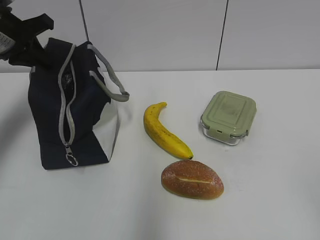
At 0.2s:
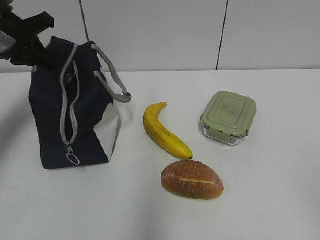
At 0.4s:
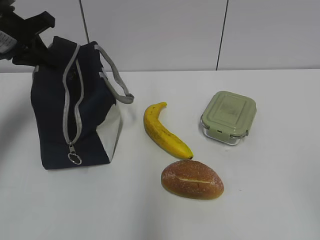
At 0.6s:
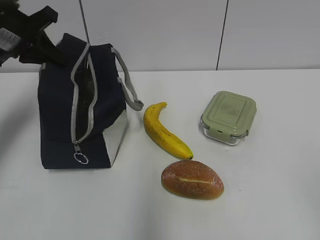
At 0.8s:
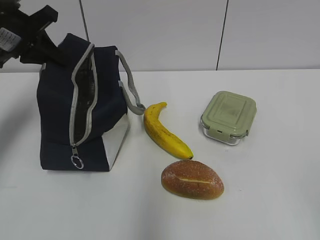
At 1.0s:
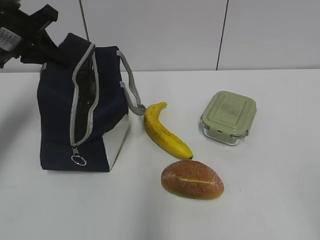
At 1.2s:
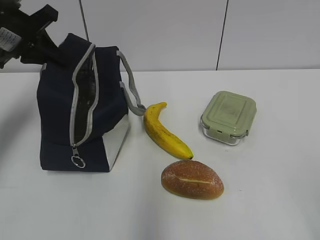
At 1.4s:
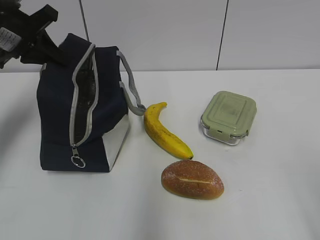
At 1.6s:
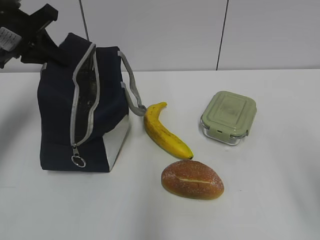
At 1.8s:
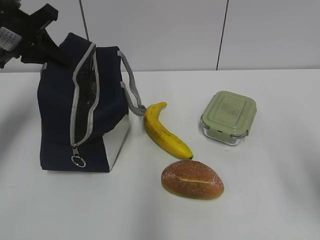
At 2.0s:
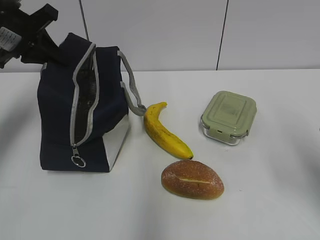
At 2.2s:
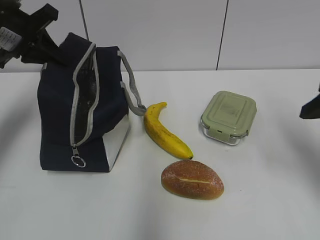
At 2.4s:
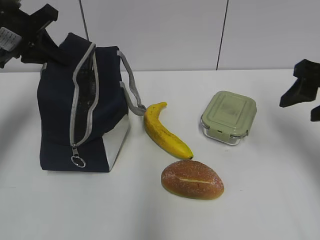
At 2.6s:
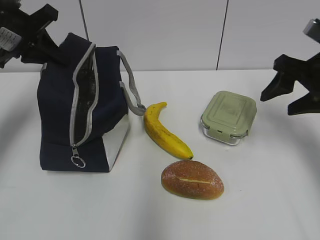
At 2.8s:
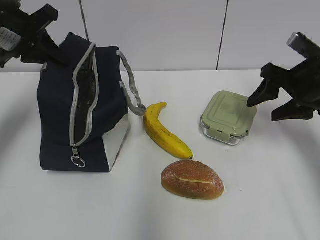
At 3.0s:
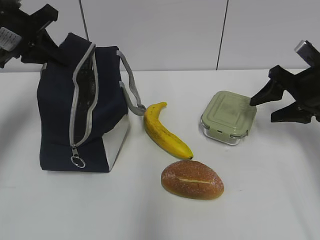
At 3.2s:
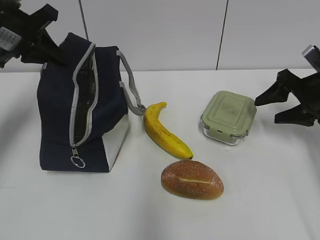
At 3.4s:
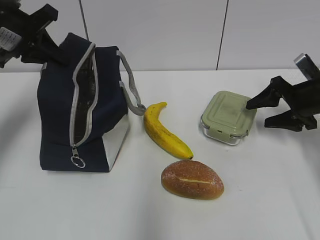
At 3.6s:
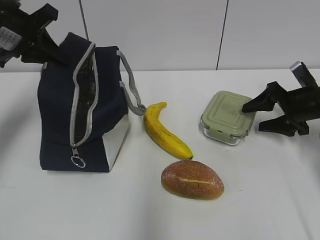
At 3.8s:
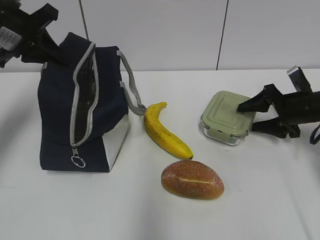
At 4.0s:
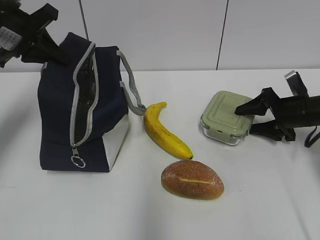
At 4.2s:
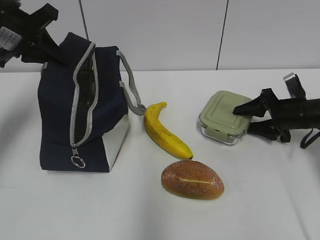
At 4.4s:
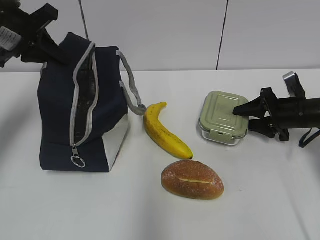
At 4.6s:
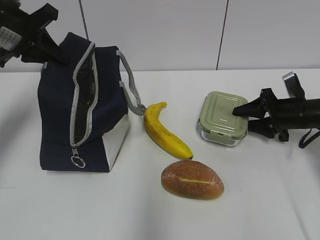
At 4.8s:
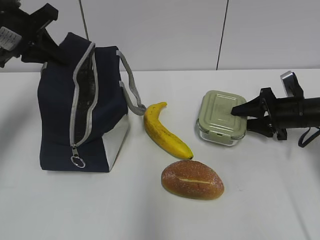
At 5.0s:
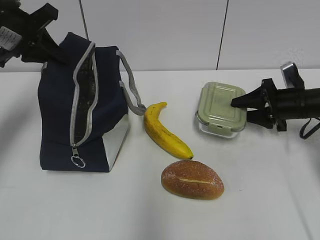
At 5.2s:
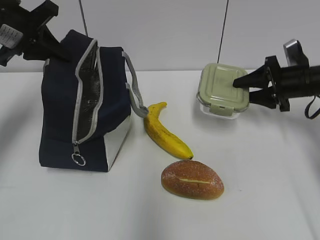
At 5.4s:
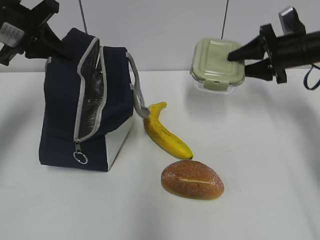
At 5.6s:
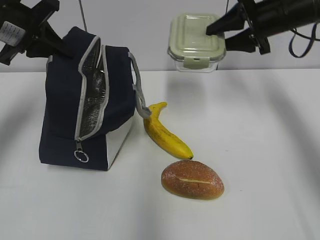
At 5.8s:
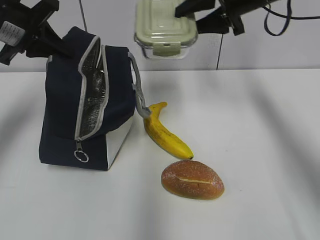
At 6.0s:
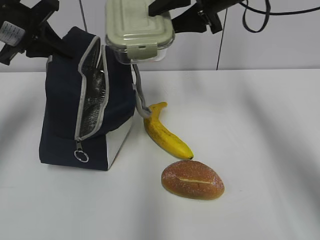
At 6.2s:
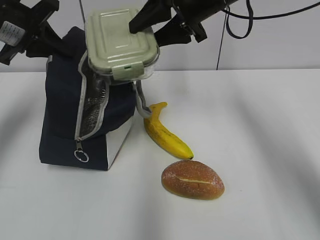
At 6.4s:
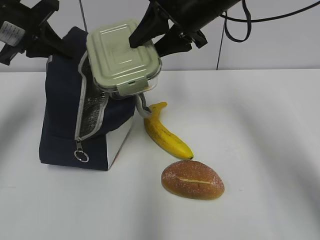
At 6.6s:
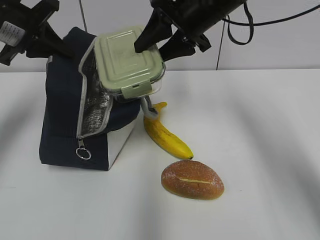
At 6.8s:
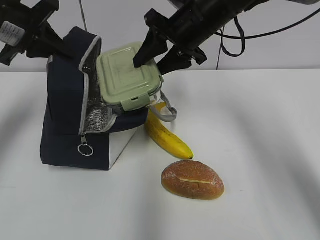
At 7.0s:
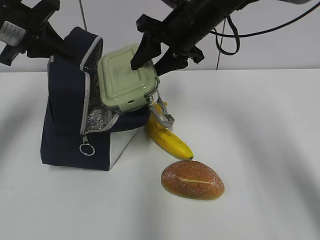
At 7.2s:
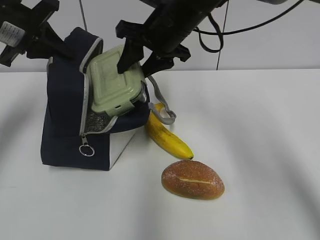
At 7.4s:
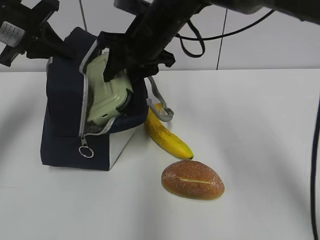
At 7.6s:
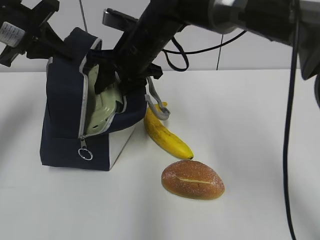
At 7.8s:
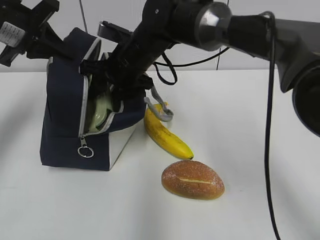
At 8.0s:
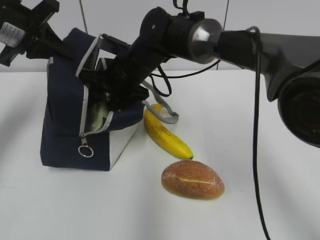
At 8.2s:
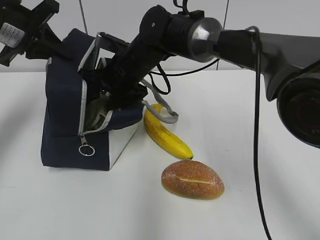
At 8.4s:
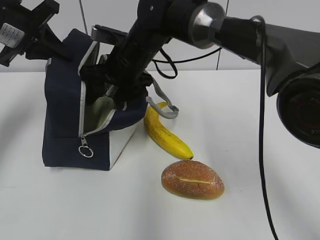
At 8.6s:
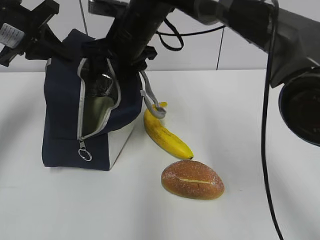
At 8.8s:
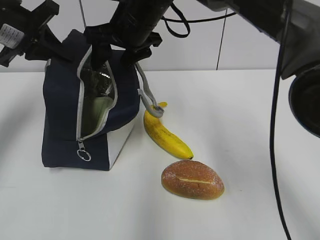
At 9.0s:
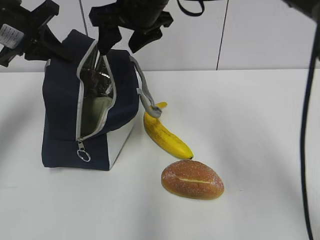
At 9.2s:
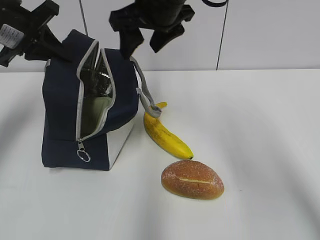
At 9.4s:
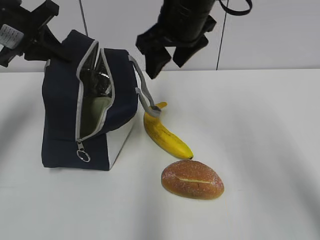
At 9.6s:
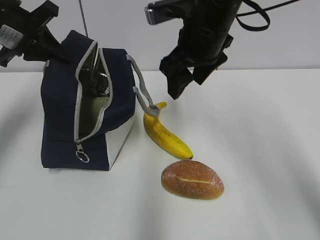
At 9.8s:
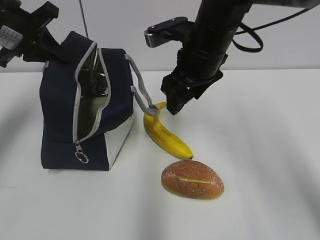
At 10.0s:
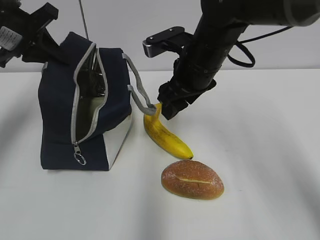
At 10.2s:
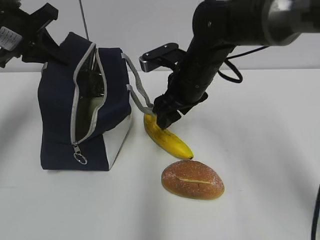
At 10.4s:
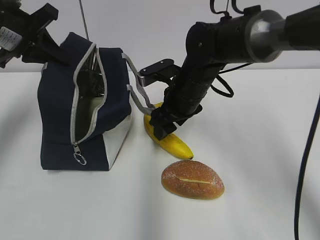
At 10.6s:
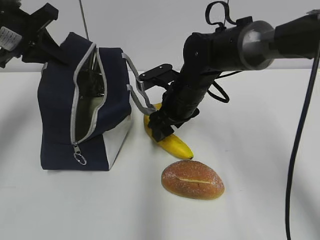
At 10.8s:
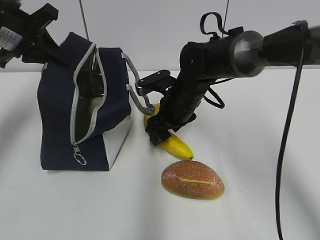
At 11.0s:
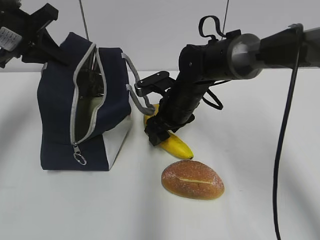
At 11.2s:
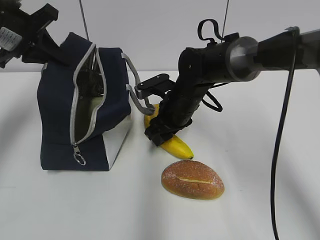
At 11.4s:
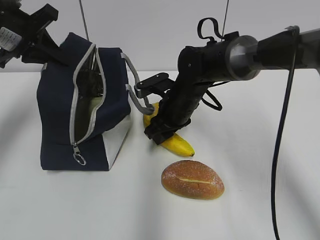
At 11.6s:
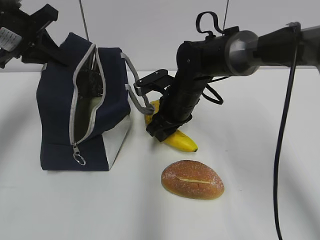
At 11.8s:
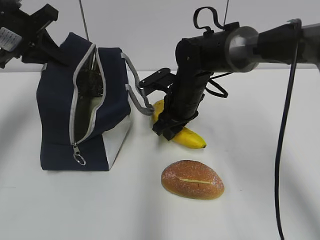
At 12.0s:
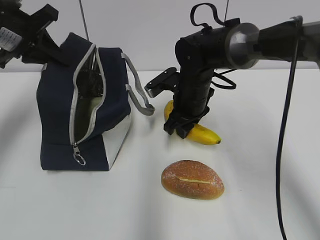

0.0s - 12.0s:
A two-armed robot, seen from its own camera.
Step, 0.0s - 4.4s: Grab the lunch box with your right hand.
Step, 6.8s - 8.4s: Place it into the bag with your right hand.
Step, 8.6s - 11.4s: Grab the banana with your right hand.
0.0s - 1.6s: The right gripper is displaced forward by about 5 cm.
1.6s - 3.0s: The right gripper goes approximately 30 cm forward.
3.0s - 4.4s: The right gripper moves downward, some 10 cm.
4.4s - 6.0s: The right gripper moves upward and to the left, about 30 cm.
6.0s - 7.6s: The right gripper goes some 15 cm to the left and downward.
7.6s - 9.0s: The right gripper heads upward, covering some 10 cm.
9.0s - 10.4s: The right gripper heads downward, covering approximately 15 cm.
10.4s - 12.0s: The right gripper closes up.

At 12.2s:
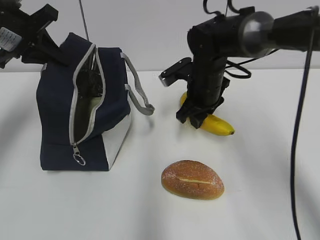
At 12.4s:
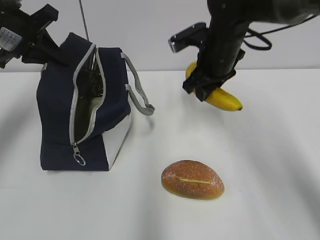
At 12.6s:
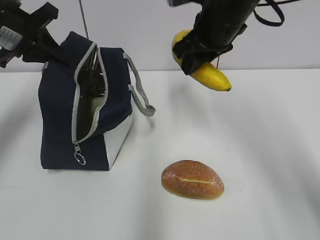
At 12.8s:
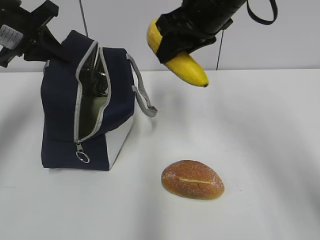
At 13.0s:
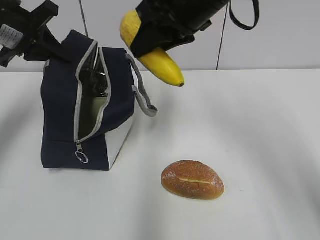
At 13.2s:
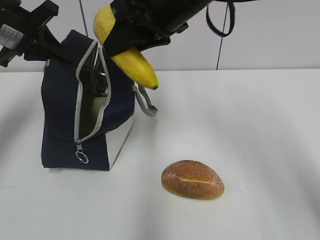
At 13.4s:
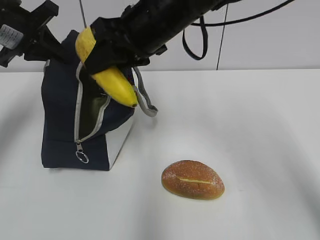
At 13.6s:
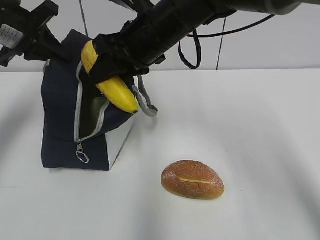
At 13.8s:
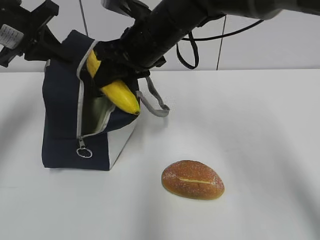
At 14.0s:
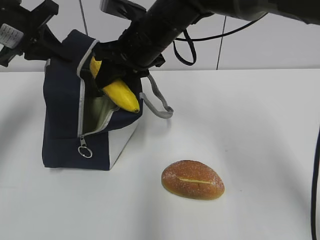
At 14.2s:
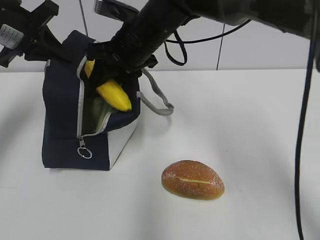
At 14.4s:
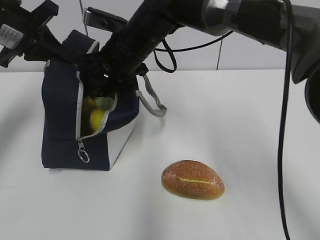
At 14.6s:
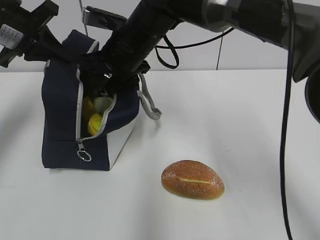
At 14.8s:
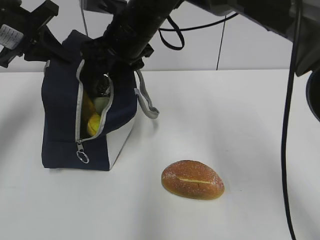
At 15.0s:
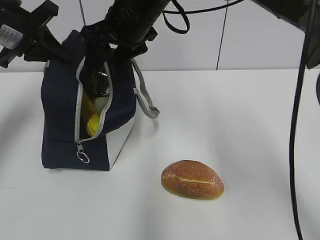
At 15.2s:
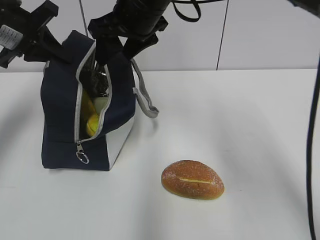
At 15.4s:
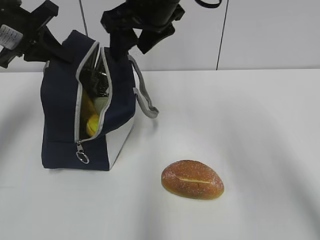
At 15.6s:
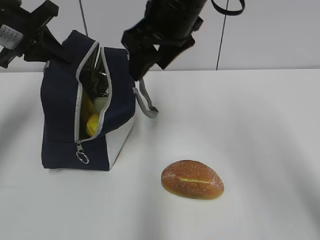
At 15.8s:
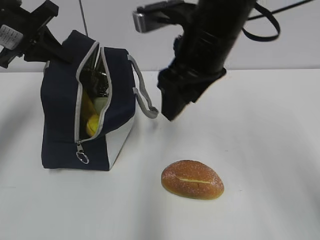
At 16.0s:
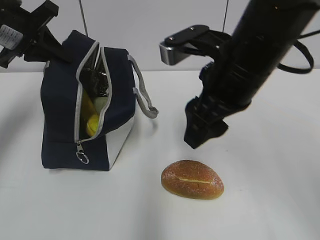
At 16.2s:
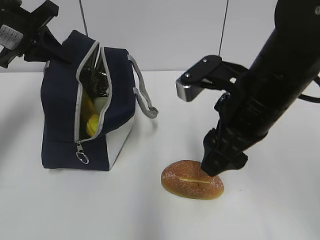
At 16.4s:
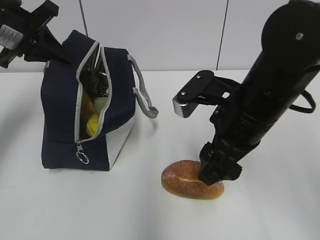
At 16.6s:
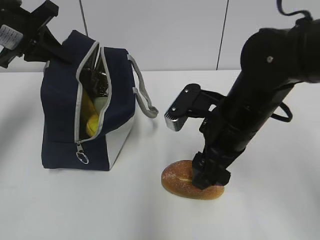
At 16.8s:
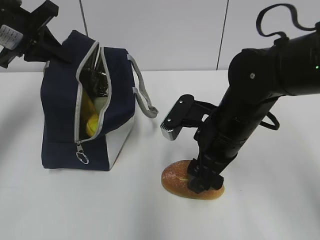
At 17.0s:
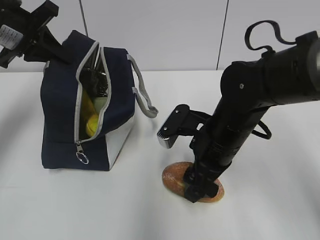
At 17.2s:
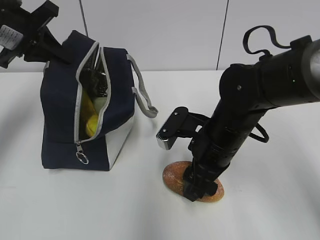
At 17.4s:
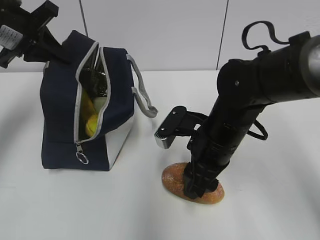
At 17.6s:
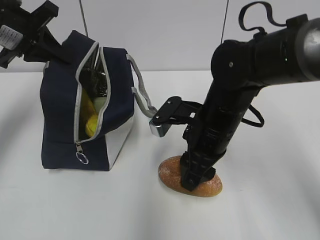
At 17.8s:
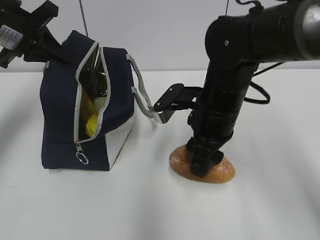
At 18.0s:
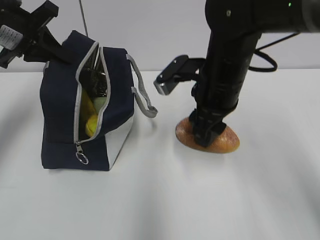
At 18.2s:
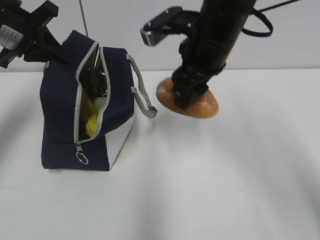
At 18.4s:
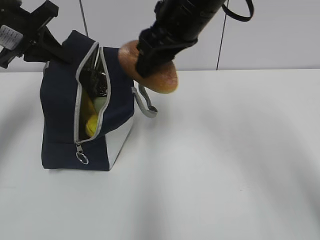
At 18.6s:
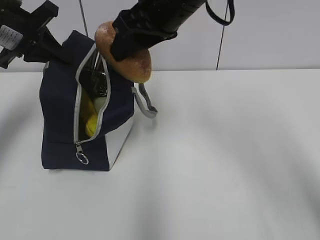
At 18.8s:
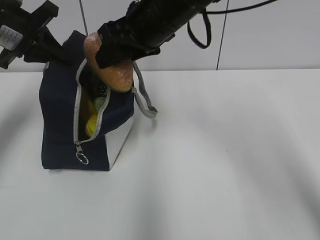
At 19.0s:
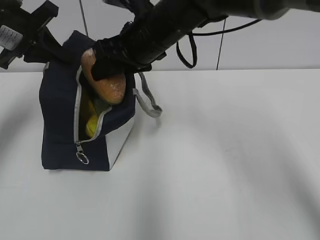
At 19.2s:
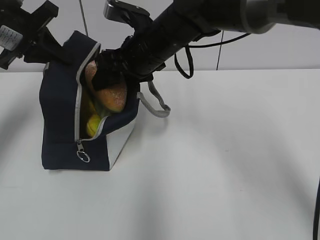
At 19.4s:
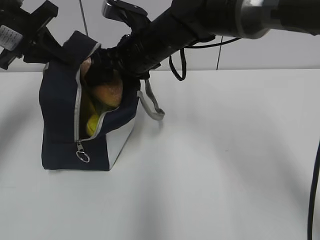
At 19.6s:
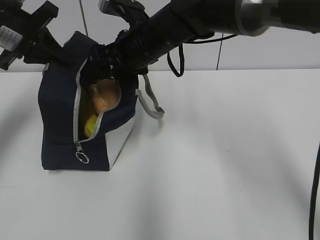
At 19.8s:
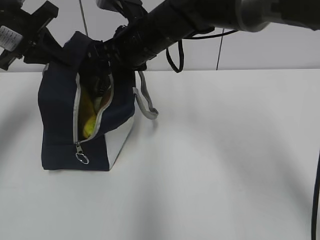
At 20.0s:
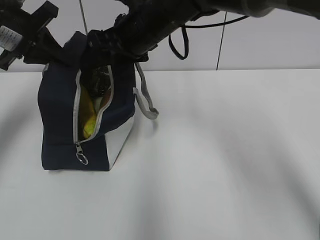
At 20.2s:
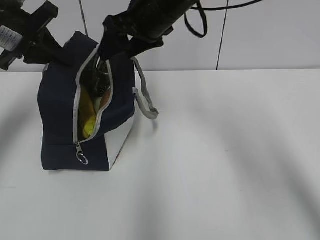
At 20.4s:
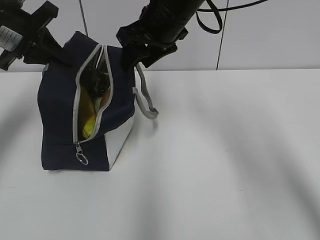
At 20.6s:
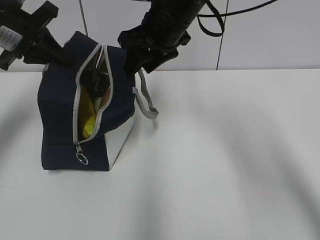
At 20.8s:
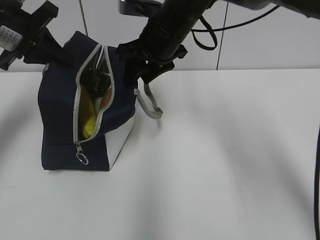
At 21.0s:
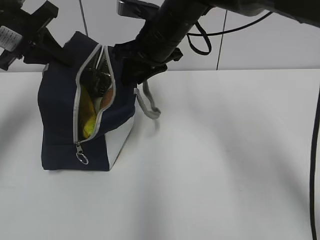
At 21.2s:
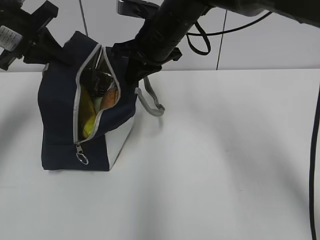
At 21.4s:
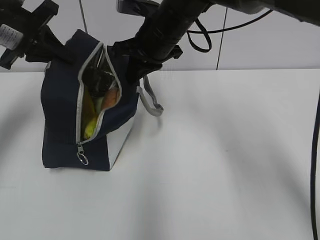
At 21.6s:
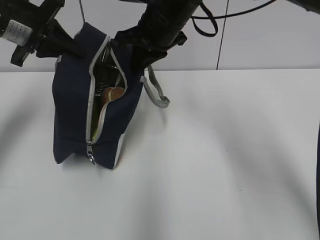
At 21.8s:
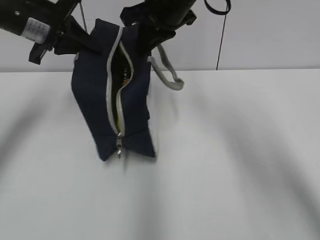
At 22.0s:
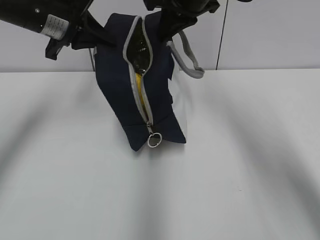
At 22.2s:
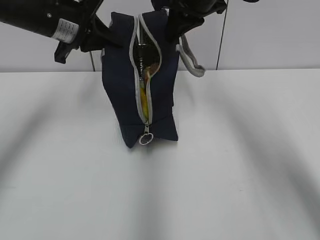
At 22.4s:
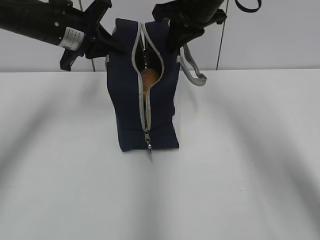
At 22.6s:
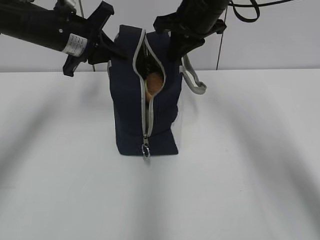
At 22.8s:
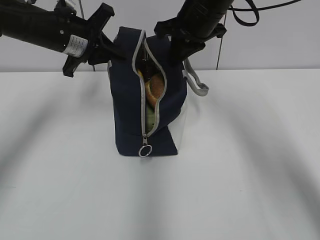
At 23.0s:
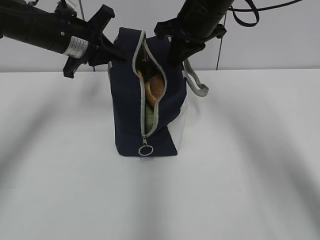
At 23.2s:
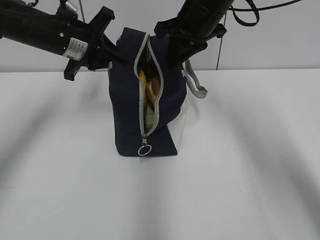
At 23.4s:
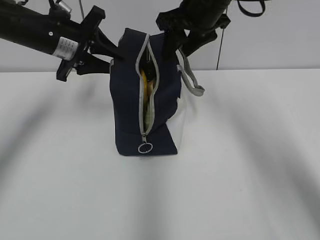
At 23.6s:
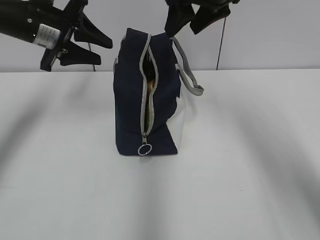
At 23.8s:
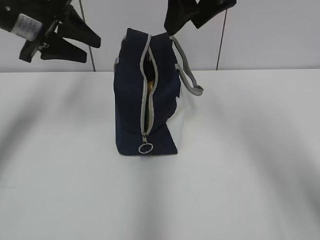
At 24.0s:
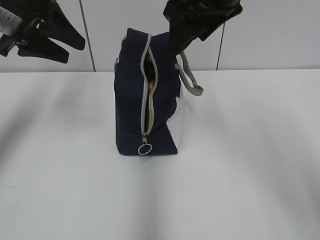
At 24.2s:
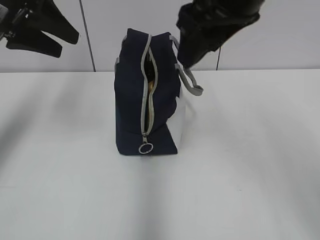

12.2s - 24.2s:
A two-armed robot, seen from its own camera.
Step, 12.2s - 14.4s: Place it into the bag with your right hand.
Step, 14.6s - 17.2s: Grab the bread with your right hand.
Step, 19.6s - 21.2s: Grab the lunch bag with your right hand.
Step, 21.6s - 23.2s: Move the lunch bag to the right.
12.2s - 13.8s: The right gripper heads upward and to the left, covering approximately 15 cm.
13.8s - 15.2s: The grippers make only small movements.
15.2s - 16.6s: The right gripper is displaced backward, downward and to the right by about 20 cm.
16.6s - 18.2s: The right gripper shifts roughly 10 cm upward and forward.
18.2s - 19.8s: The right gripper shifts about 10 cm to the left and forward, and goes upward and returns, some 5 cm each way.
19.8s - 21.2s: The right gripper closes.
21.2s - 22.6s: The two grippers go some 5 cm to the right.
22.6s - 24.2s: The left gripper is displaced upward, backward and to the left by some 15 cm, and opens, while the right gripper is displaced backward and upward by roughly 15 cm, and opens up.
